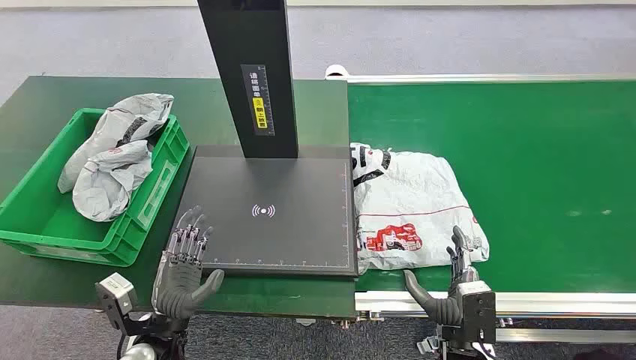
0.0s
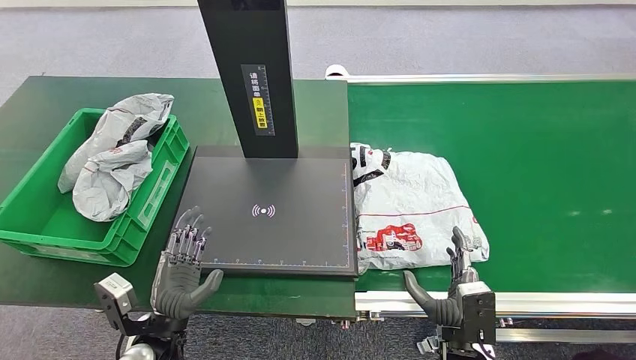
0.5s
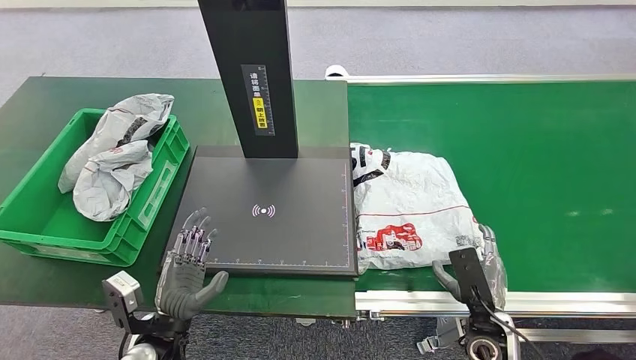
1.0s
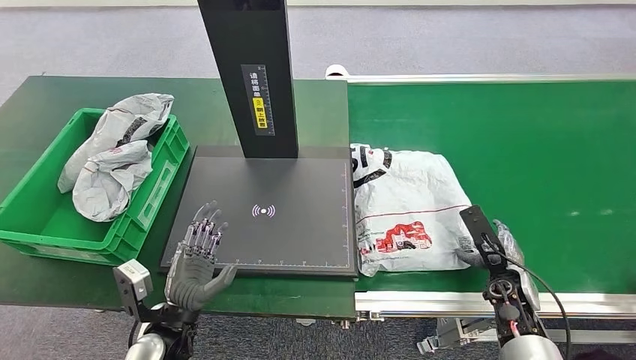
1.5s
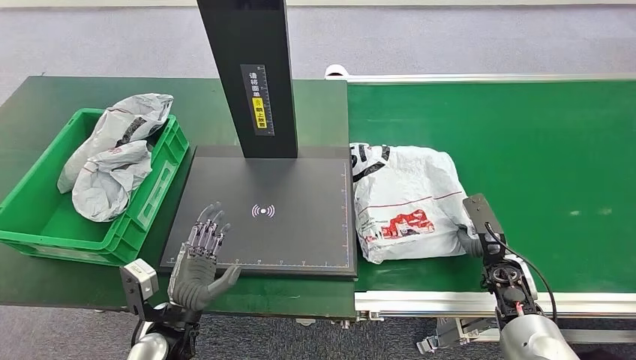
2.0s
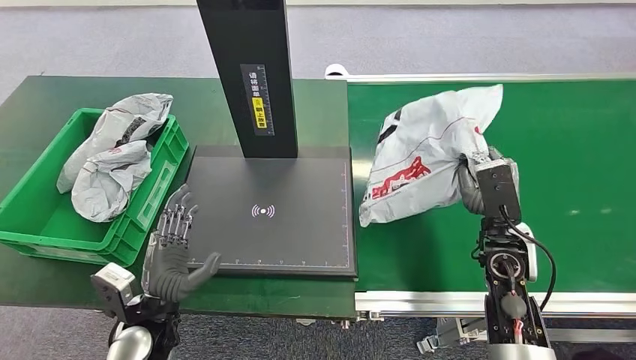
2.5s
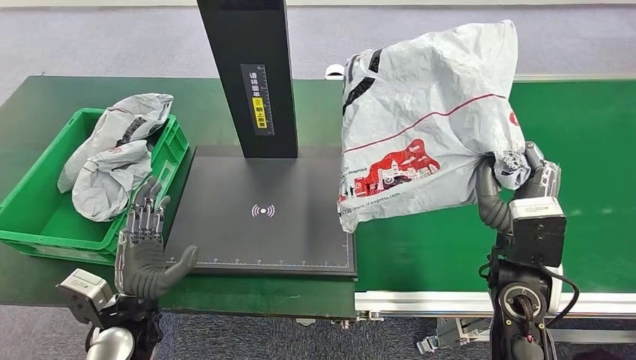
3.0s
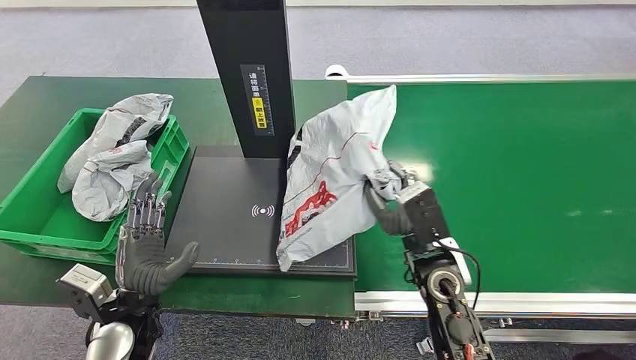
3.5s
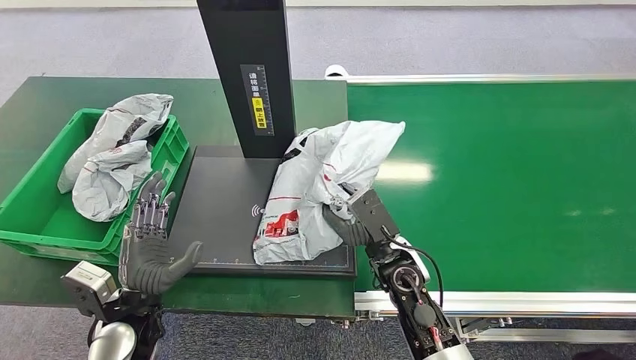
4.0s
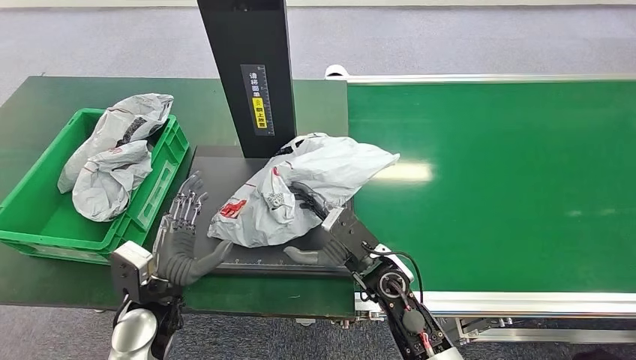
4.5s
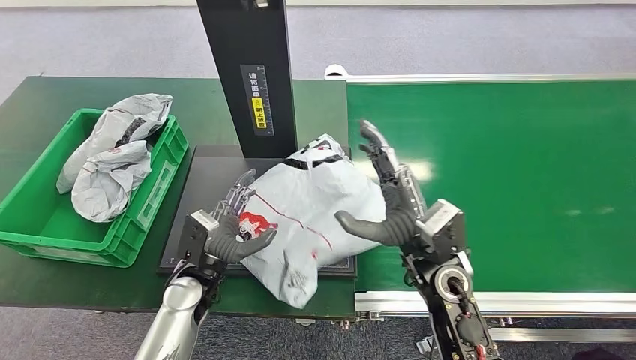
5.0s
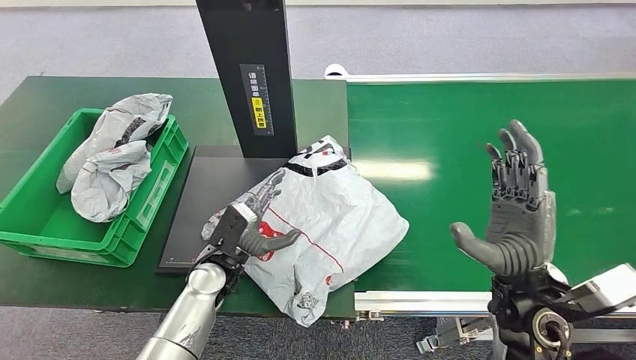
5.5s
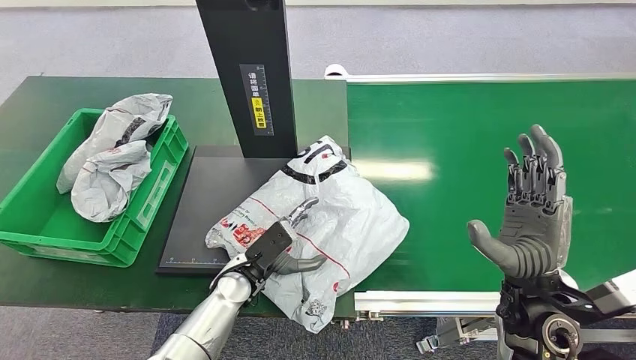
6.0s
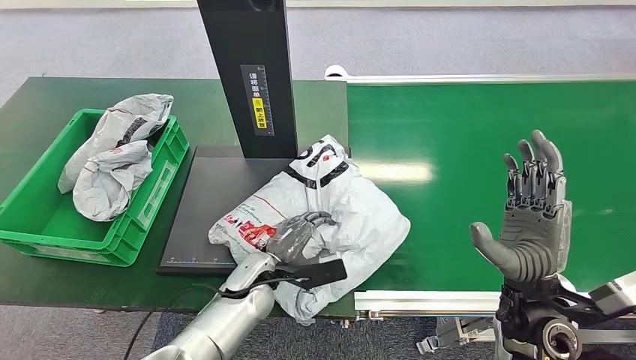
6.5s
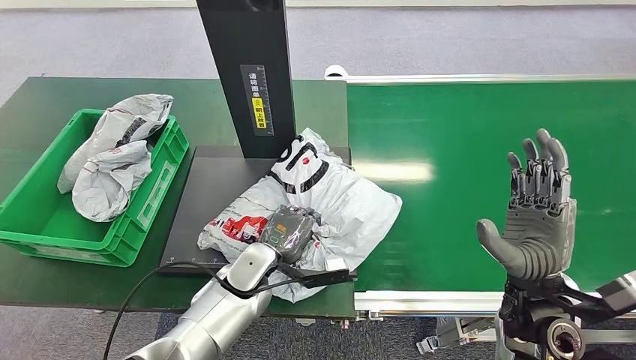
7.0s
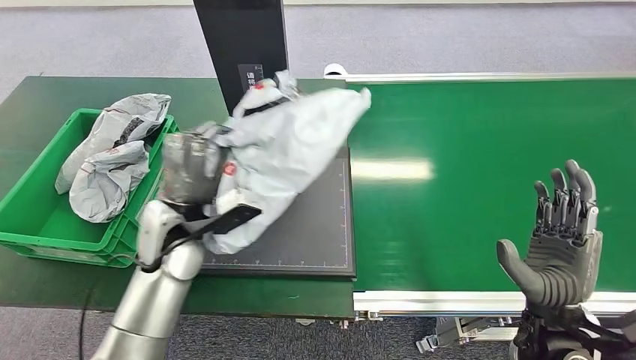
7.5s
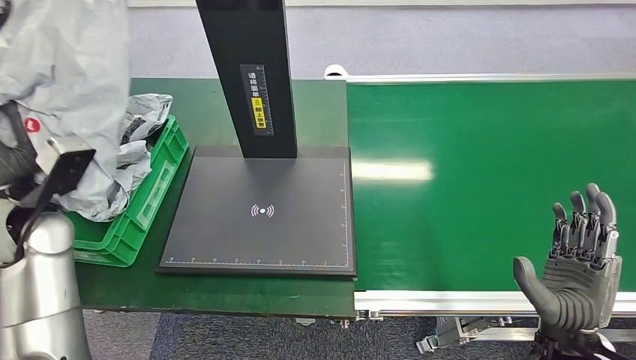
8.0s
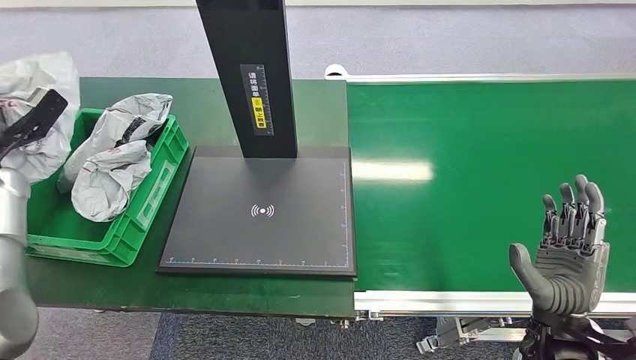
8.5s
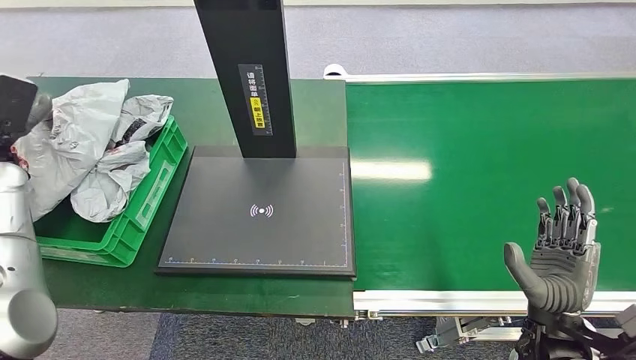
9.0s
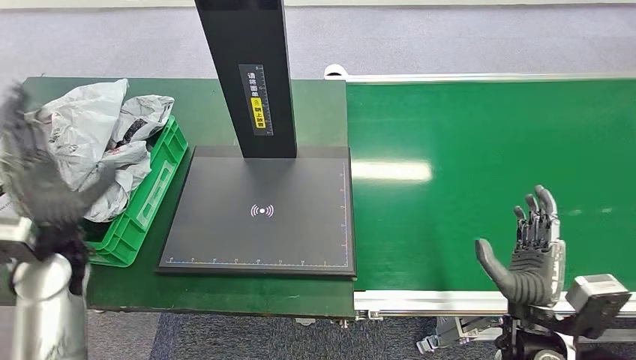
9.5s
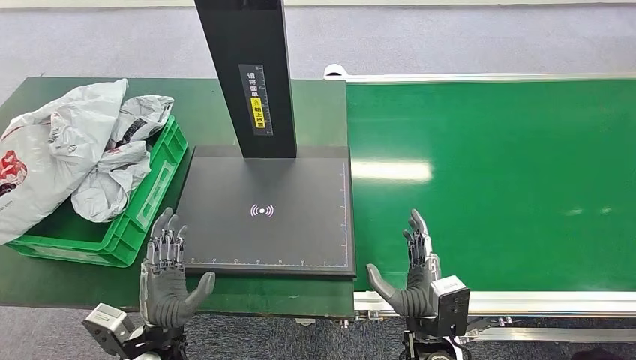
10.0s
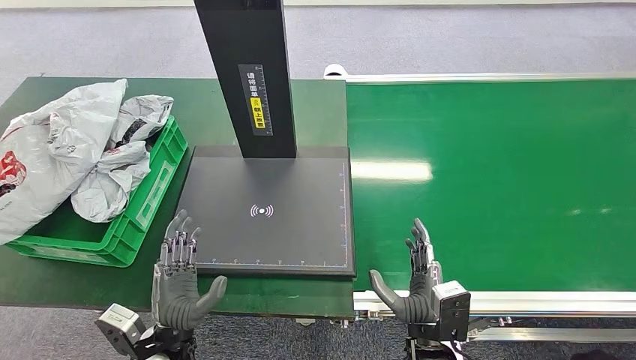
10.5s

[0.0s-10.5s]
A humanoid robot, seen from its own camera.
Step, 0.0s to 3.0s: Pick up the package from the conveyor belt.
Step, 4.0s to 5.5s: Place the package onto the inbound machine.
Step, 6.5s to 8.0s: Pick up the package from the inbound machine.
Step, 9.0s to 10.5s: Place the package into the parcel locker.
8.5s to 10.5s: The right hand moves to the left and downward, approximately 20 cm. Meanwhile the left hand shifts approximately 50 cm to the right, backward and downward.

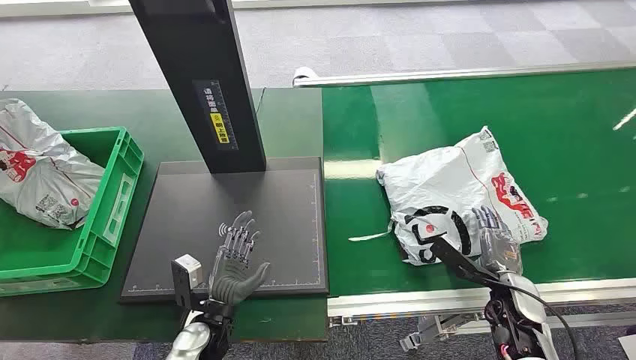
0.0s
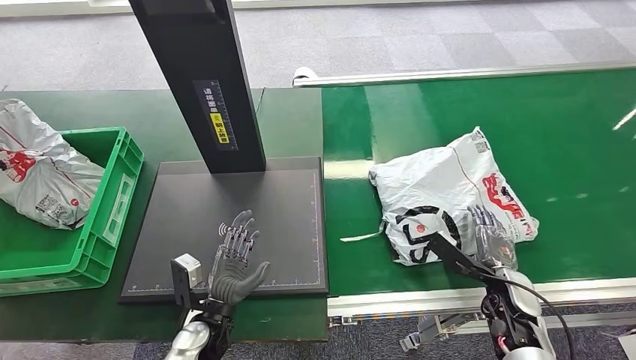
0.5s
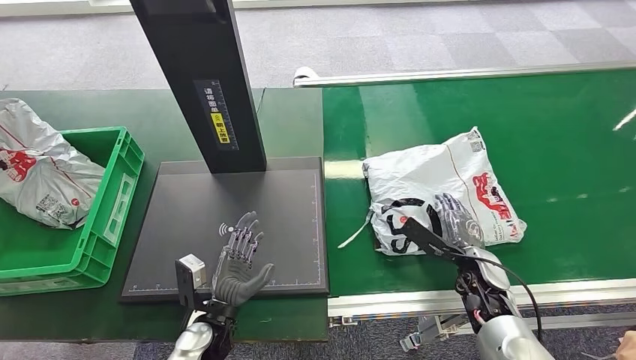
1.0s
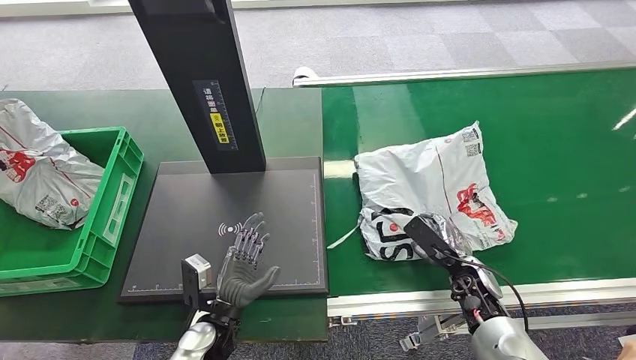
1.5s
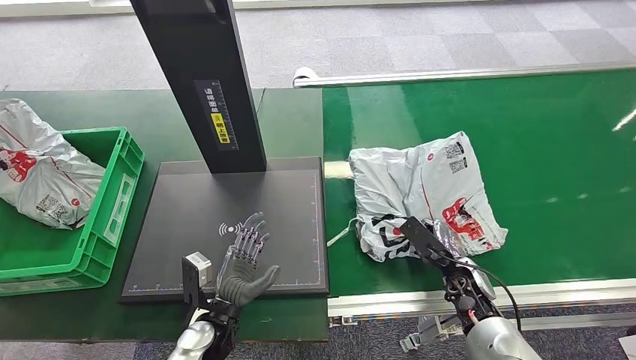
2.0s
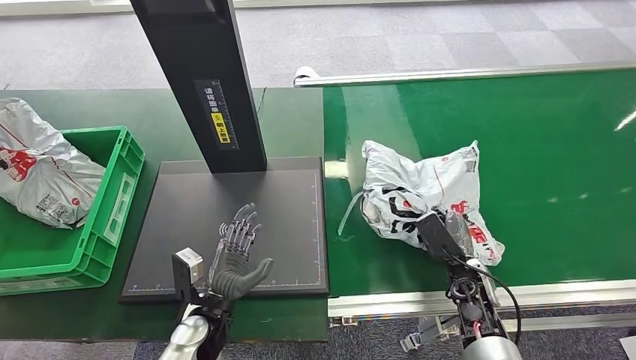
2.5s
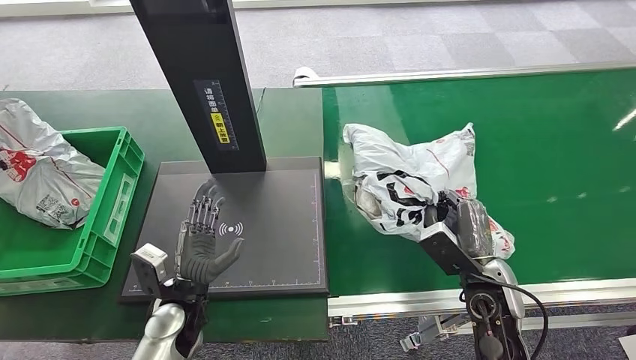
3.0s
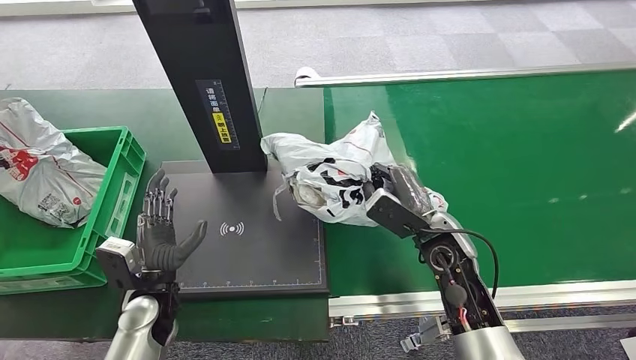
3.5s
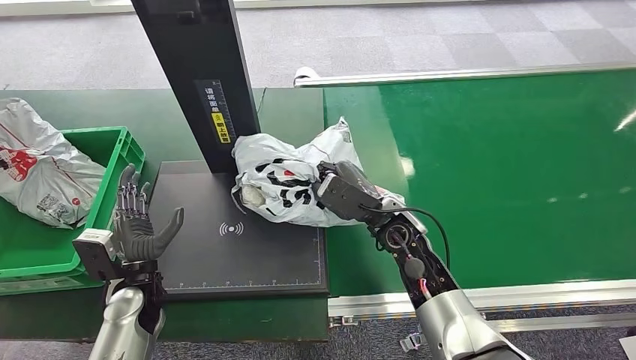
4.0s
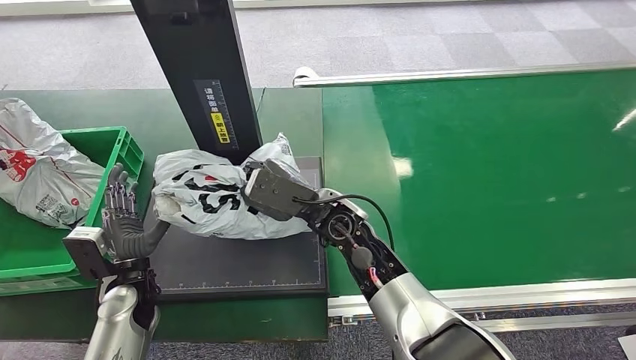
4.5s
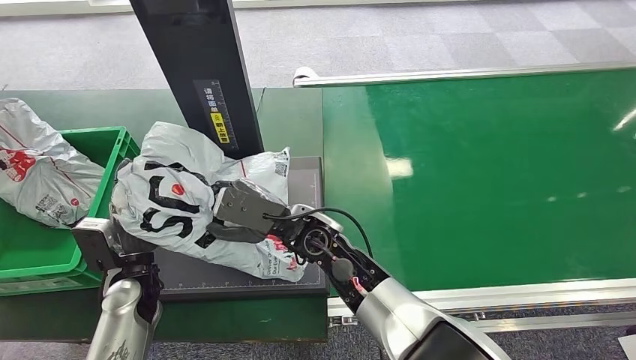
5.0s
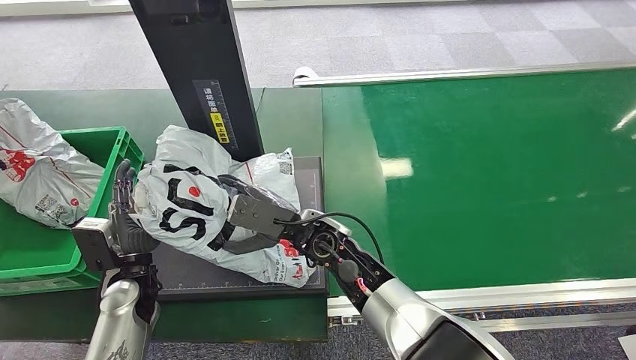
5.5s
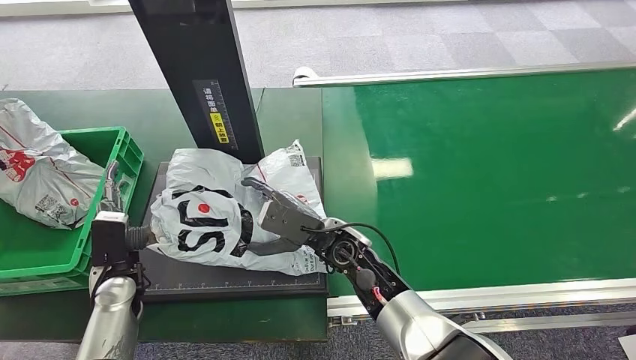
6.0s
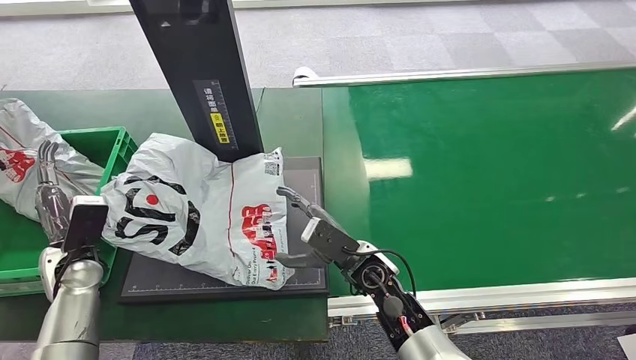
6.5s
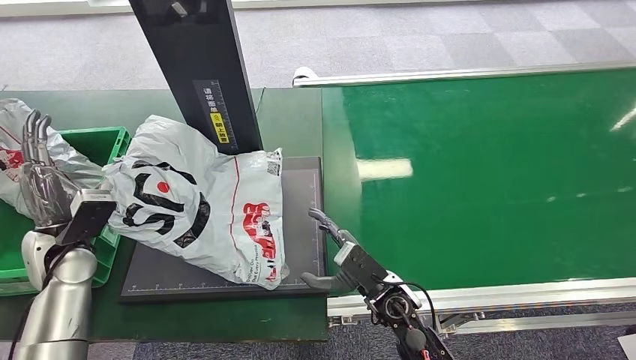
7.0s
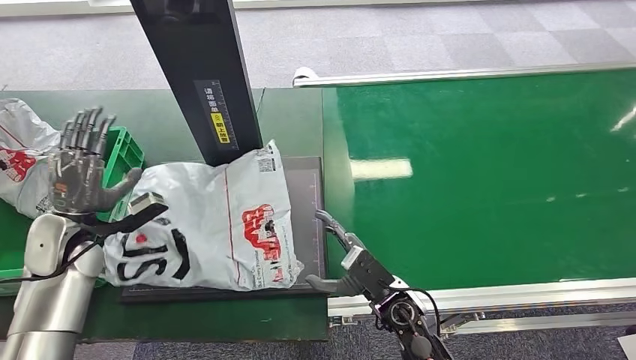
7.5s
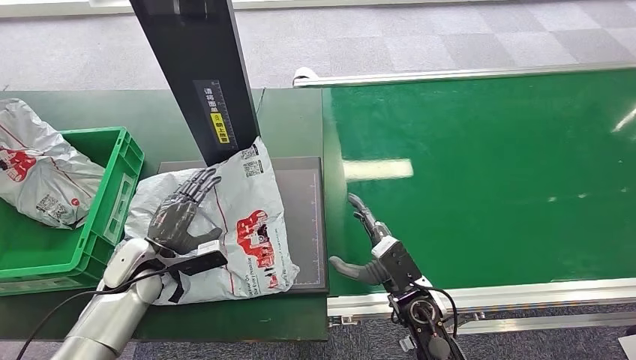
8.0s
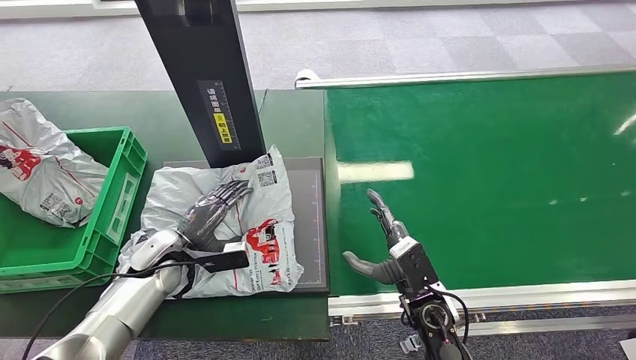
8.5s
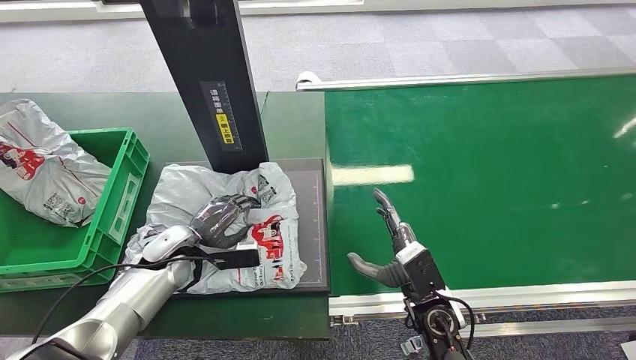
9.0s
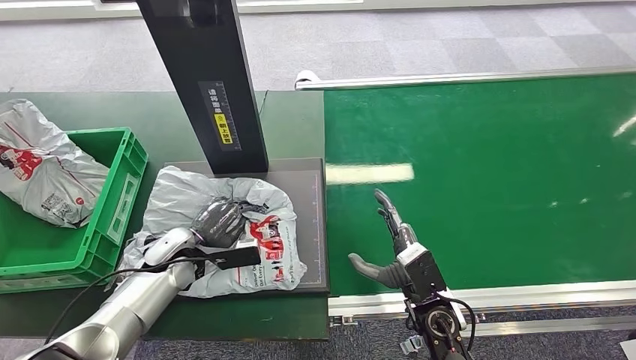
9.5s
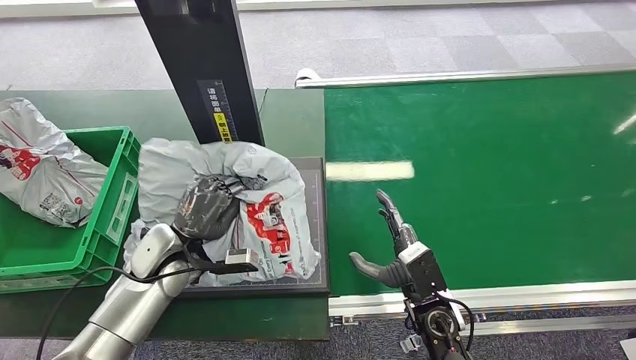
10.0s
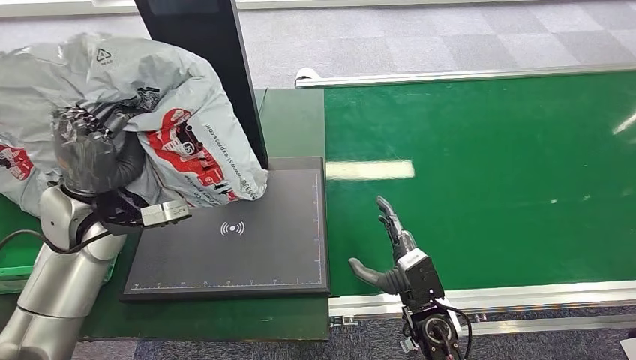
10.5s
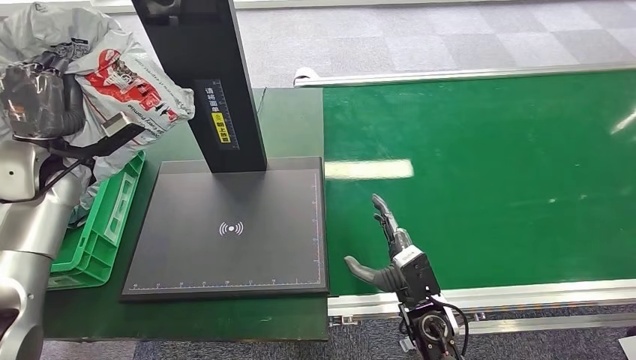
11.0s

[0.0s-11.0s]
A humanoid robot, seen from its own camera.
Step, 0.0s to 3.5s: Pick up the package from the conveyor belt.
Step, 4.0s to 7.0s: Place the package onto the inbound machine.
Step, 7.5s to 10.5s: Pick up the package from the inbound machine.
